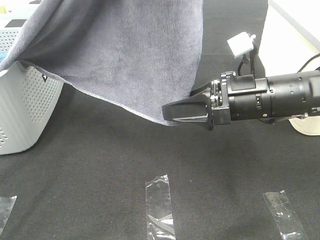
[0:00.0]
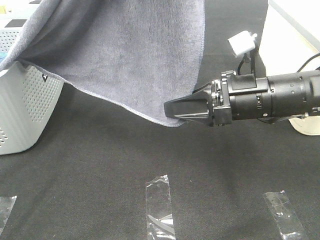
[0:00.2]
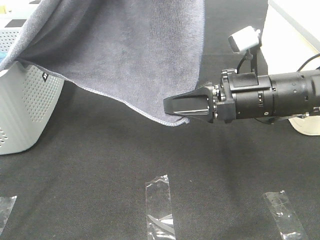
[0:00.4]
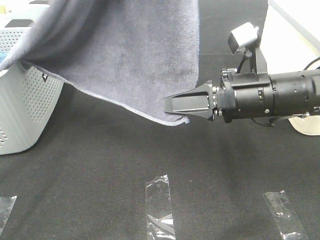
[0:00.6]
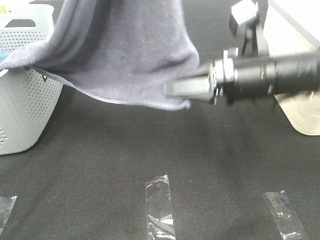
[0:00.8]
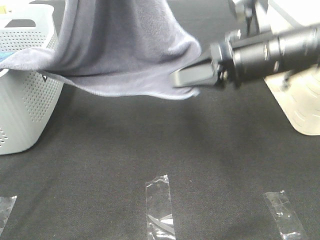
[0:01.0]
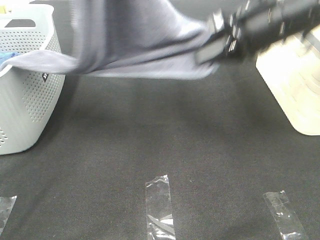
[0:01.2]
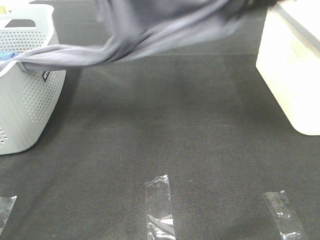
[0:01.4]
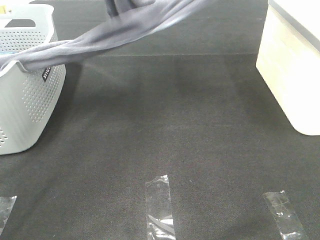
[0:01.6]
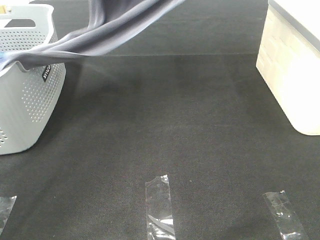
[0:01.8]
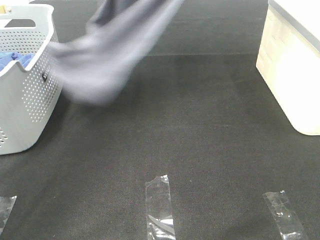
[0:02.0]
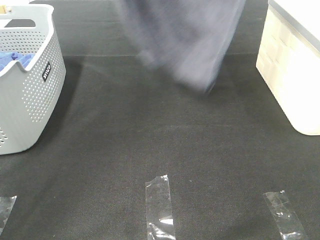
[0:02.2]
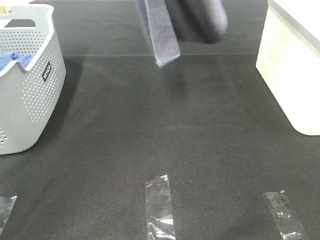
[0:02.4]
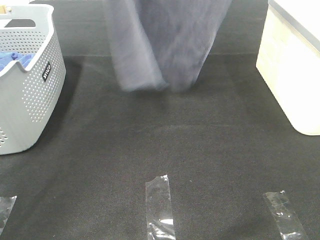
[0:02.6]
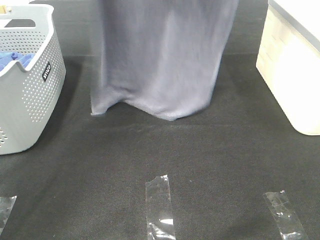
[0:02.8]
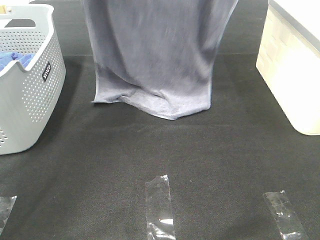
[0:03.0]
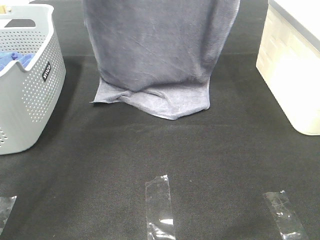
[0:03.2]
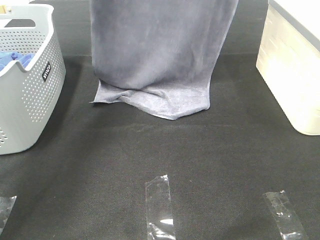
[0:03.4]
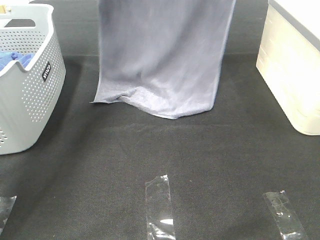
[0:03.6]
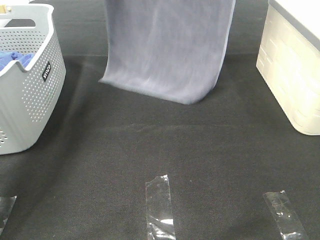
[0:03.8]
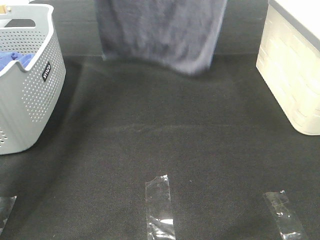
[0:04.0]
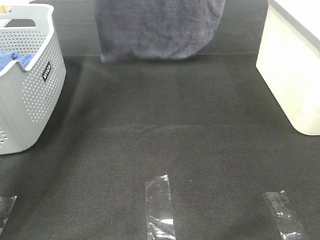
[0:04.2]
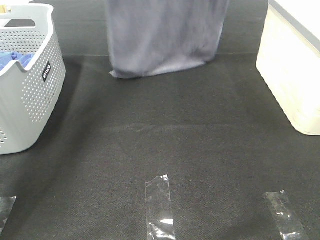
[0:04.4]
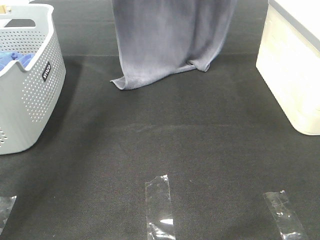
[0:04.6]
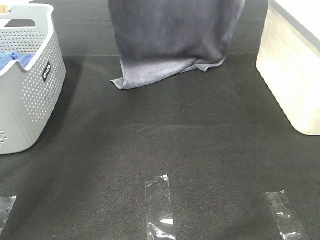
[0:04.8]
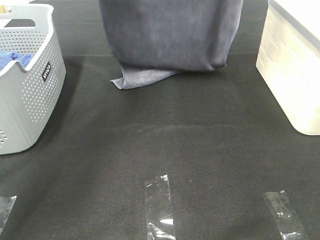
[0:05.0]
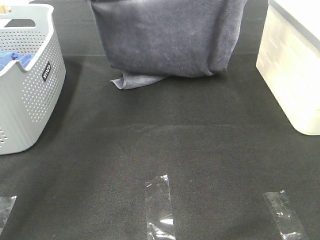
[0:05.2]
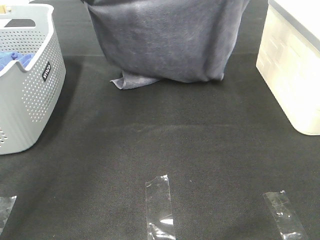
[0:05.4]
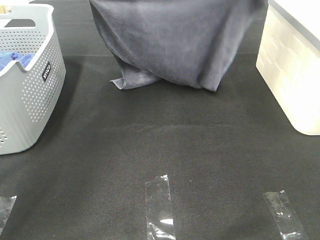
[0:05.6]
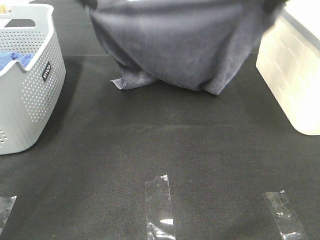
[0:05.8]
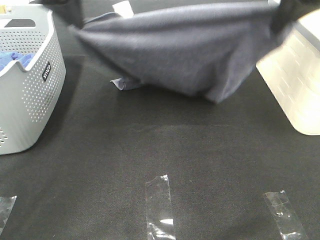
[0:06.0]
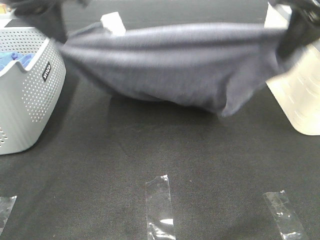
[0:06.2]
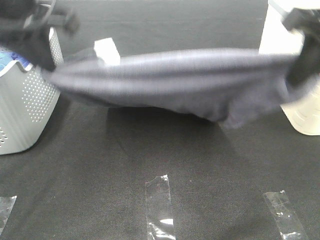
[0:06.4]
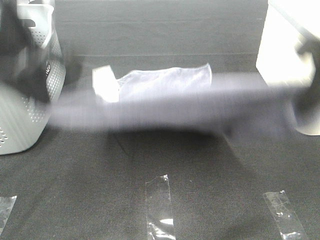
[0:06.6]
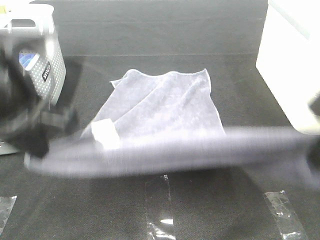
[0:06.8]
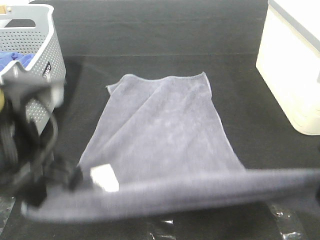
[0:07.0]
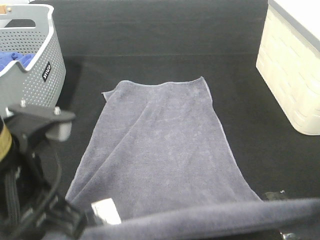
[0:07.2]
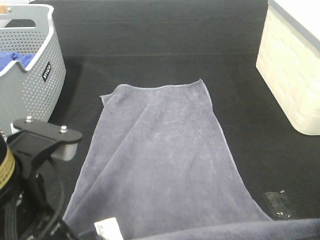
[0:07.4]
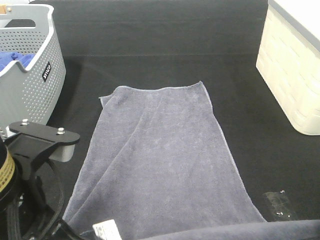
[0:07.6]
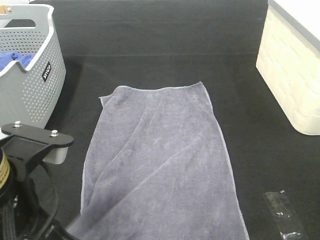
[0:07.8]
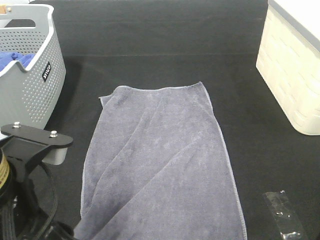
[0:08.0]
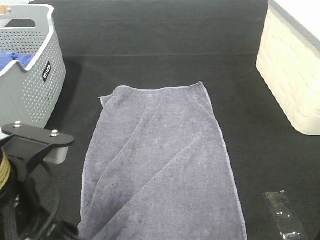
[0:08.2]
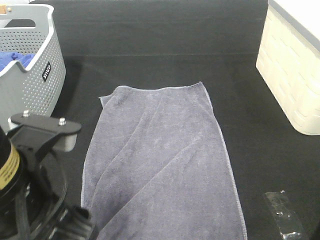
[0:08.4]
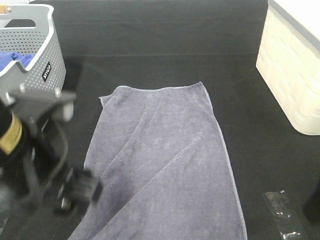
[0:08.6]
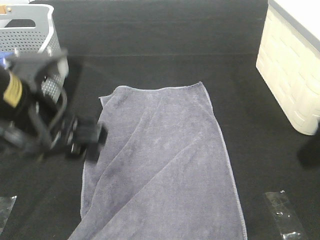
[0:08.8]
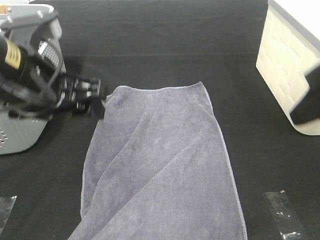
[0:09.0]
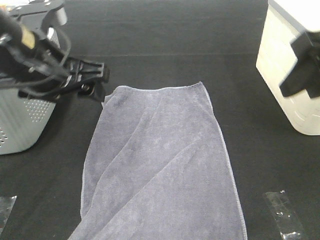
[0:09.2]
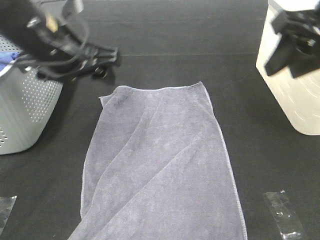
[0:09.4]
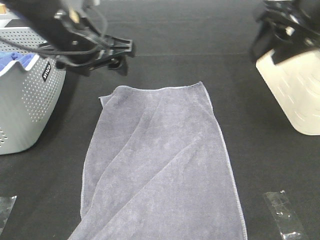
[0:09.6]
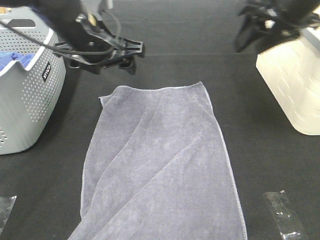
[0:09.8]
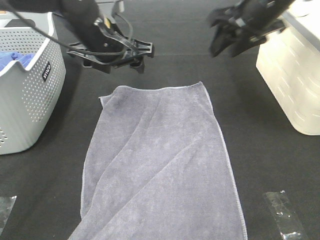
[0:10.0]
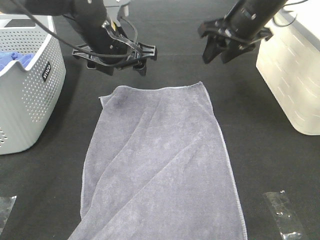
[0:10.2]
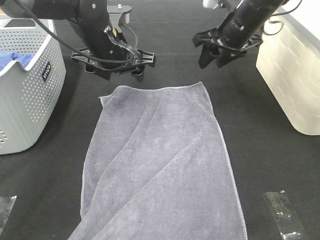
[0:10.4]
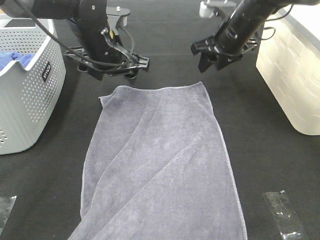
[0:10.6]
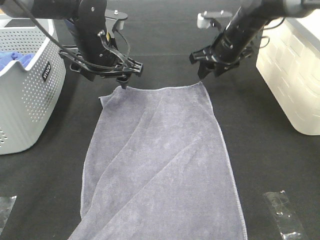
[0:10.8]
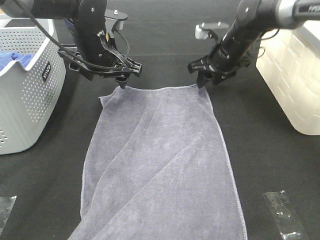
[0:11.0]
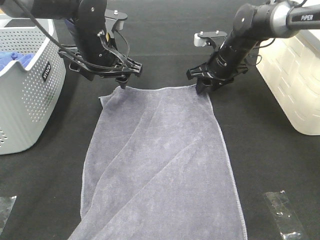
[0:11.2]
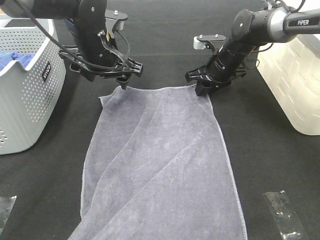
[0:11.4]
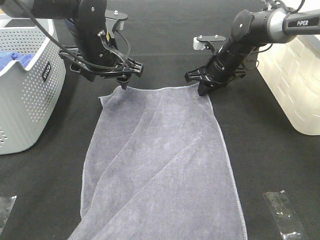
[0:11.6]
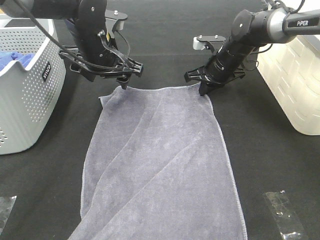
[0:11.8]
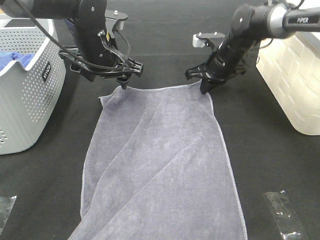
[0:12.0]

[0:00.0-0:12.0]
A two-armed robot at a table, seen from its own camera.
Task of the whole recording: Remove the towel and place it.
Step, 0:01.0 to 0:04.0: Left hand: spread the grey towel flat on the table.
Step, 0:01.0 to 0:04.0: Right hand: spread the grey towel flat on the table.
Step, 0:04.2 to 0:11.6: Left hand:adjust the gray towel.
Step, 0:04.2 to 0:11.6: Right hand:adjust the gray towel.
0:00.0 to 0:01.6: The right gripper goes about 25 cm upward and forward, and closes its fingers, while the left gripper travels forward and downward by approximately 15 cm.
0:01.6 to 0:03.0: The right gripper reaches roughly 15 cm upward, then returns. Meanwhile the left gripper moves about 10 cm upward and comes back.
0:03.0 to 0:04.4: The two grippers go approximately 10 cm forward.
0:04.4 to 0:06.0: The left gripper is displaced backward by approximately 15 cm; the right gripper travels backward and downward by some 20 cm.
0:06.0 to 0:07.6: The grippers both shift backward and downward by about 25 cm.
0:07.6 to 0:09.0: The left gripper shifts about 10 cm forward, and opens up. Meanwhile the right gripper shifts approximately 10 cm forward and upward, and opens its fingers.
0:09.0 to 0:10.4: Both grippers move forward, approximately 20 cm.
0:10.4 to 0:12.0: The right gripper travels downward by about 10 cm, and closes its fingers.

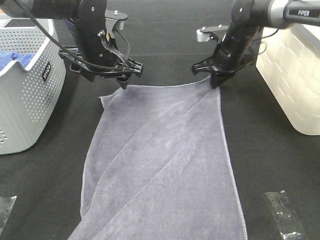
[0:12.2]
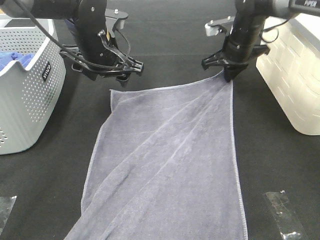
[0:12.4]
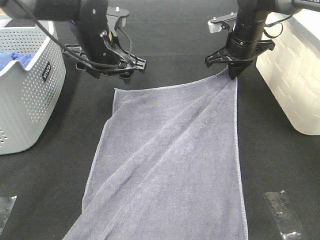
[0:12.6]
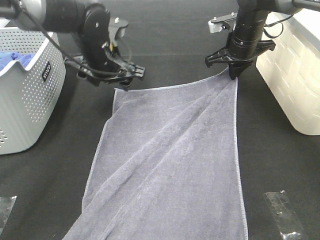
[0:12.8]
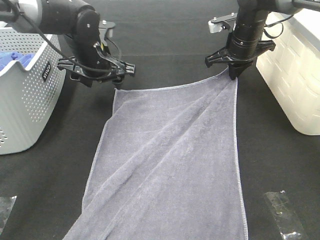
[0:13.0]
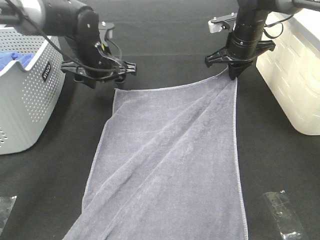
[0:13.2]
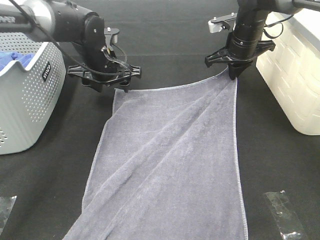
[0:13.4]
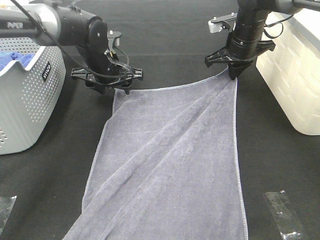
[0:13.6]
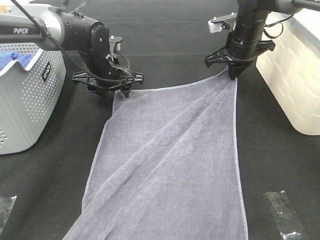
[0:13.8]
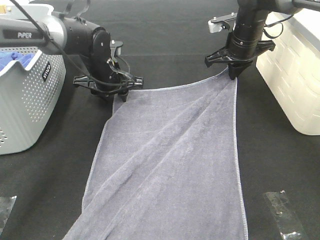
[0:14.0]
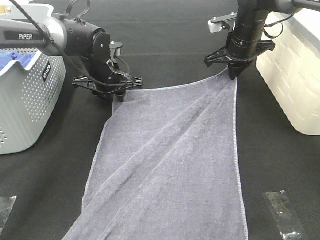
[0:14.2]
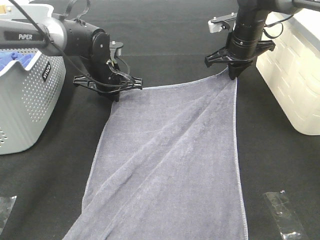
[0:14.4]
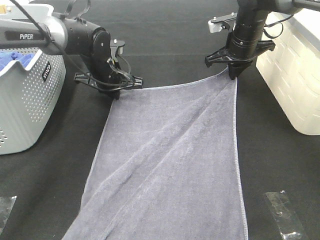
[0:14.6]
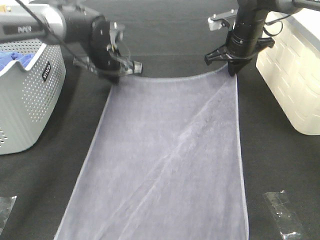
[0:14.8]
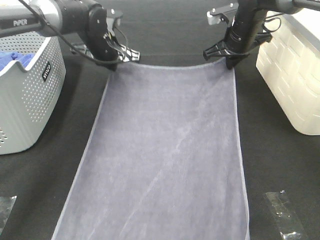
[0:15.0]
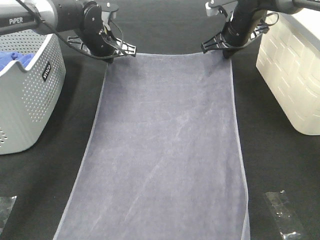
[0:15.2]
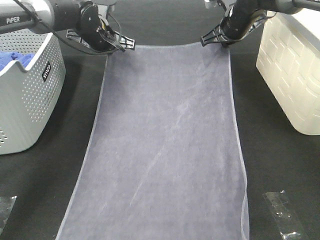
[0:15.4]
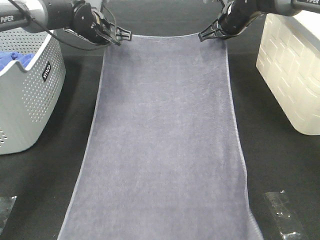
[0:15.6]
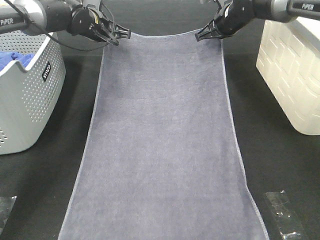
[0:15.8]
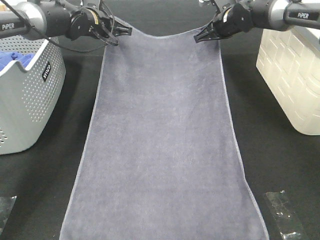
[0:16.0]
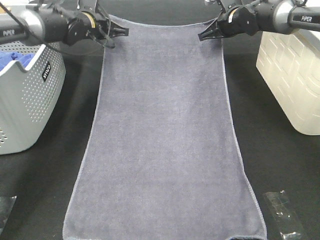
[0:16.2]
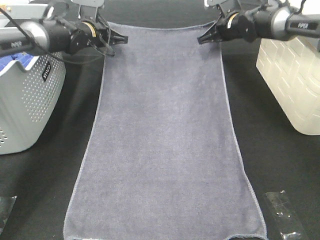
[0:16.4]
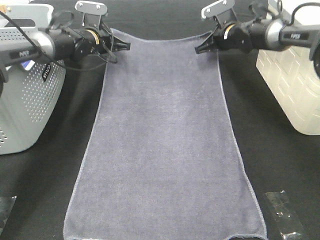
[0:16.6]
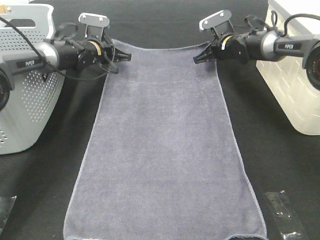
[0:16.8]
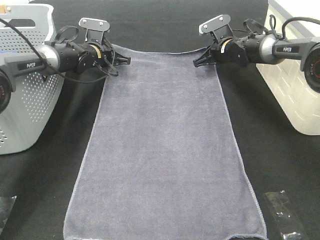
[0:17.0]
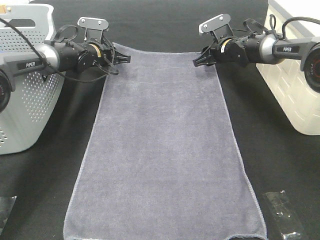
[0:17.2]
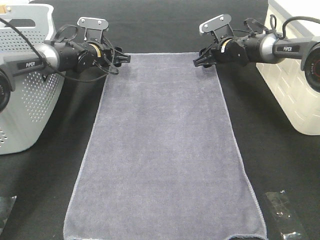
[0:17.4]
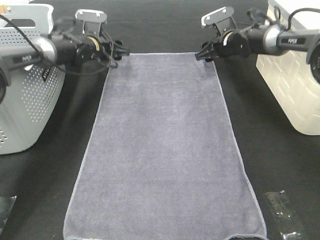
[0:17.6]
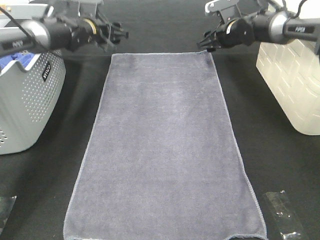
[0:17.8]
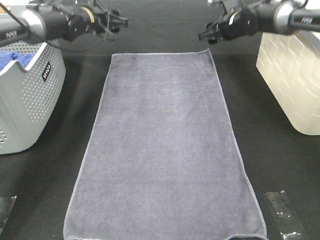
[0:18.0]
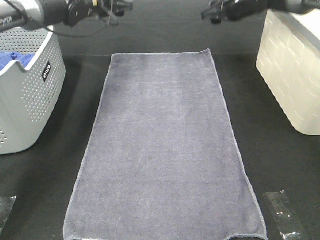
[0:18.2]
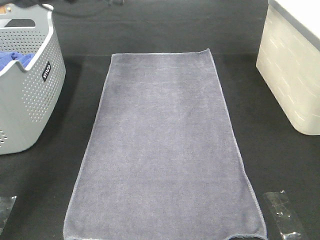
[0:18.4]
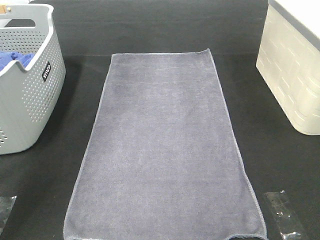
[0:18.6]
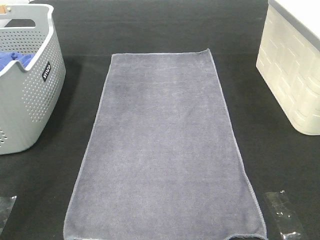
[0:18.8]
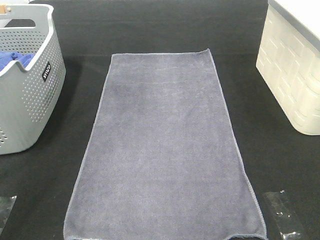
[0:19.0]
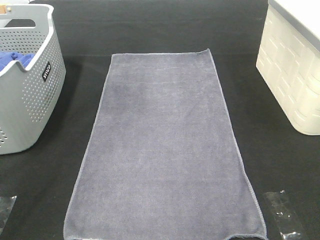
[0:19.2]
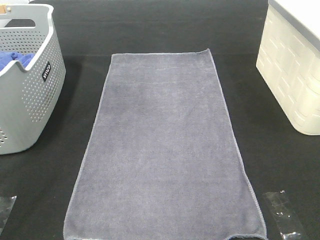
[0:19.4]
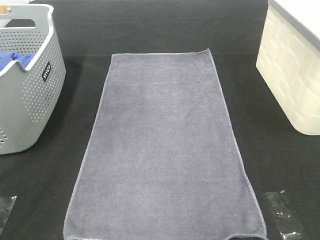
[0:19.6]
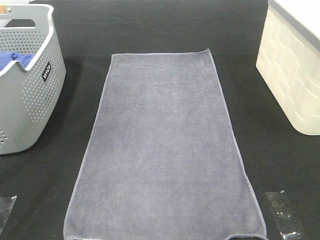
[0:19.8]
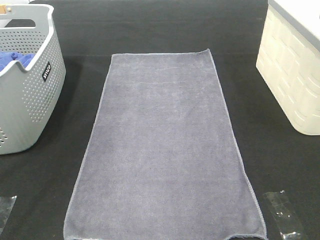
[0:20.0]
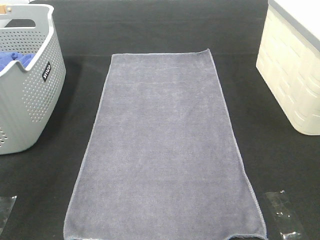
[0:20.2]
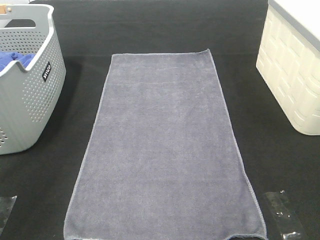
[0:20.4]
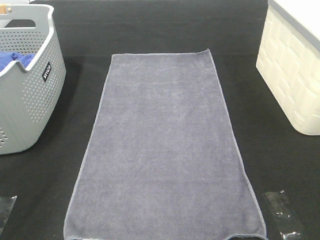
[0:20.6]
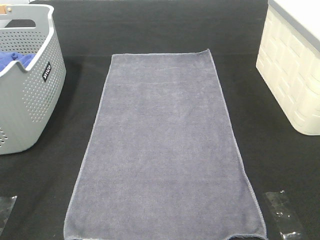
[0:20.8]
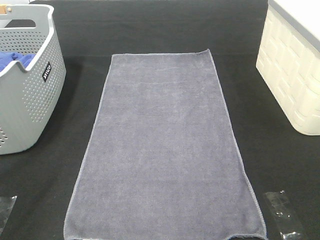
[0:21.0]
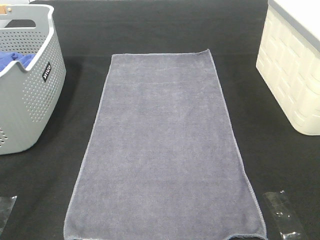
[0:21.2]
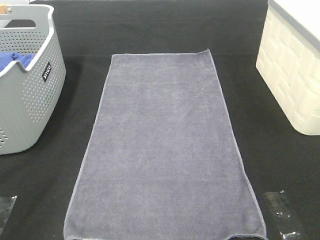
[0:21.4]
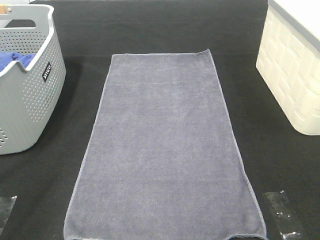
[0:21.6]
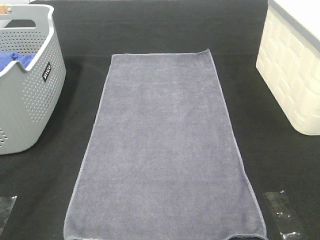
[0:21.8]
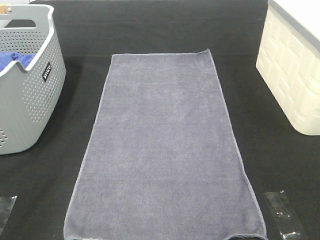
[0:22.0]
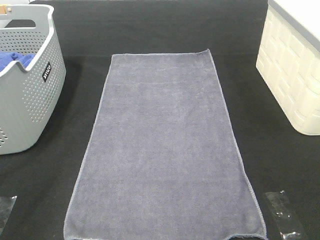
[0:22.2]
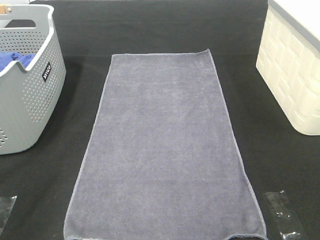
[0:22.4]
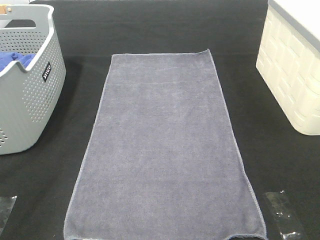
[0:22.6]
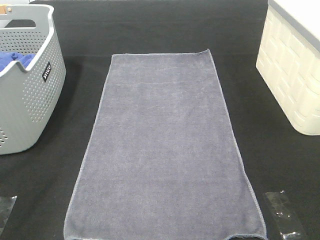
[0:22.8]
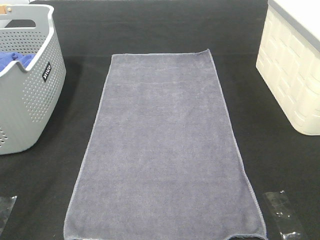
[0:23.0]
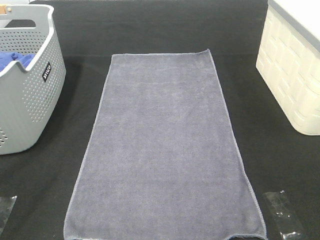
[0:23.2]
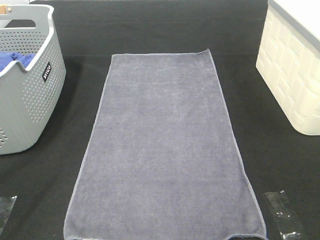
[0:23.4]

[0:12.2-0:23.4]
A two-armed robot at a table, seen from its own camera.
Task of the whole recording: Remove the towel and place it.
0:12.2 to 0:13.8: The left gripper goes roughly 10 cm downward and forward.
0:13.8 to 0:15.4: The left gripper shifts roughly 10 cm forward and upward, and closes its fingers.
0:15.4 to 0:17.0: The grippers both shift downward by some 10 cm.
0:17.0 to 0:18.6: The grippers both shift upward by approximately 25 cm. The left gripper opens, while the right gripper opens up.
0:18.6 to 0:20.2: The two grippers go approximately 30 cm backward.
